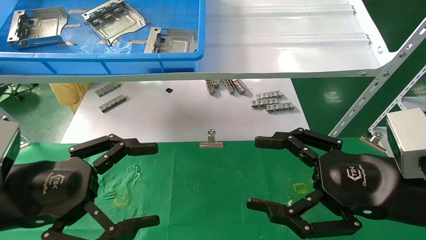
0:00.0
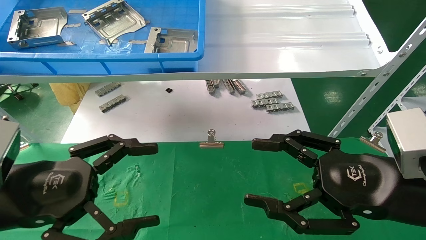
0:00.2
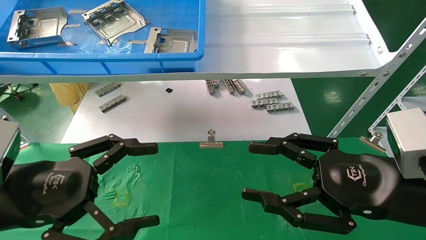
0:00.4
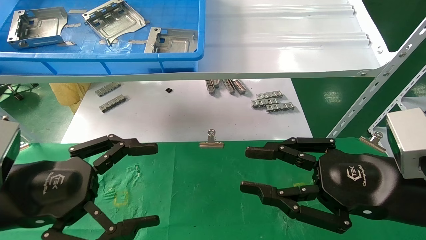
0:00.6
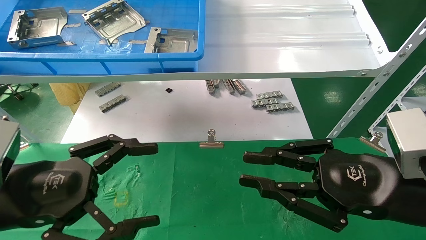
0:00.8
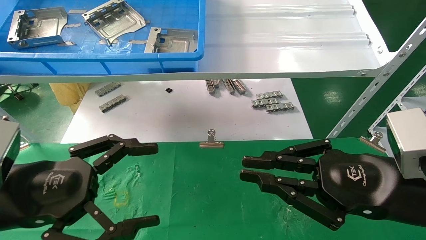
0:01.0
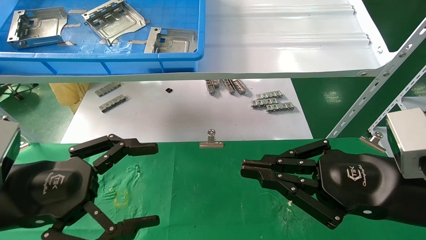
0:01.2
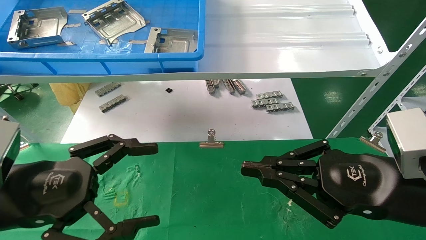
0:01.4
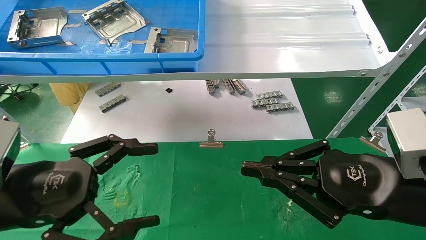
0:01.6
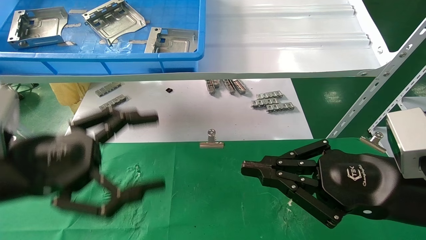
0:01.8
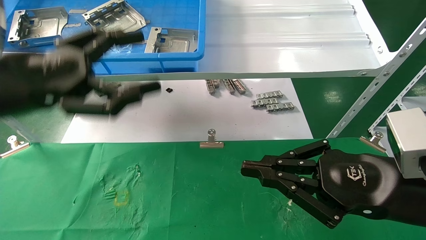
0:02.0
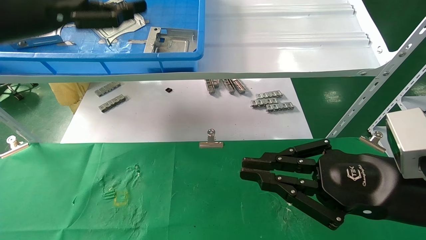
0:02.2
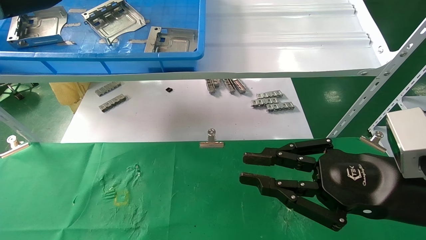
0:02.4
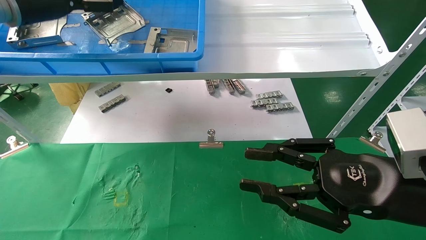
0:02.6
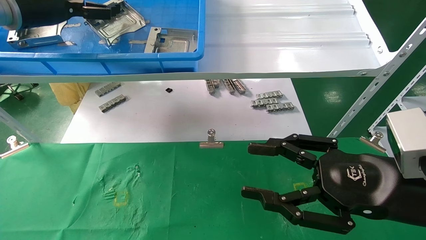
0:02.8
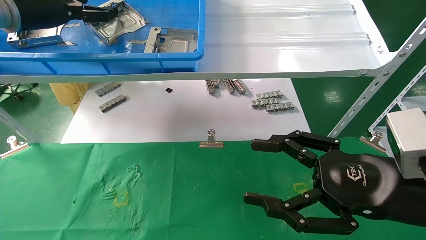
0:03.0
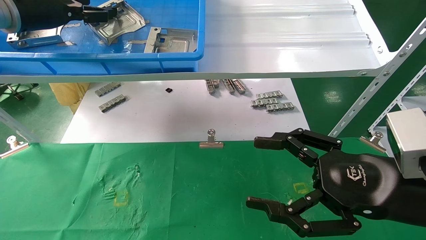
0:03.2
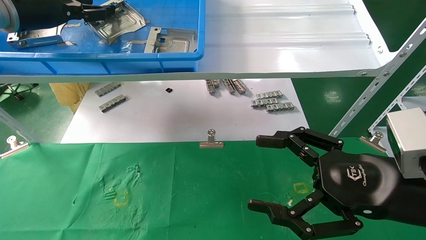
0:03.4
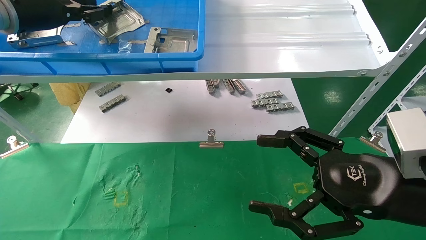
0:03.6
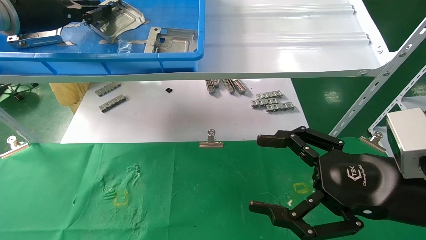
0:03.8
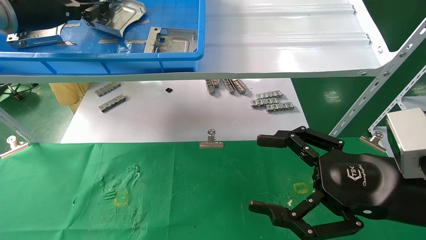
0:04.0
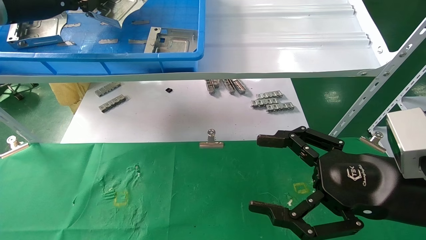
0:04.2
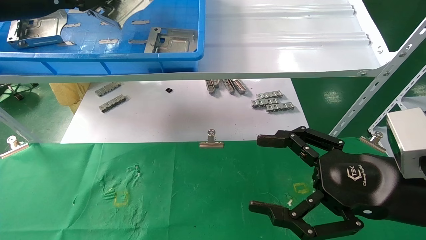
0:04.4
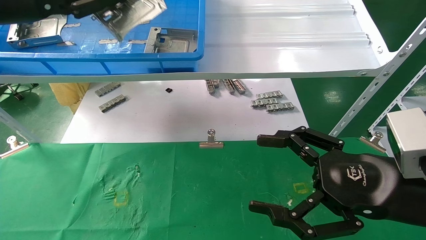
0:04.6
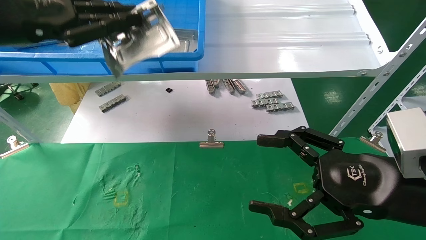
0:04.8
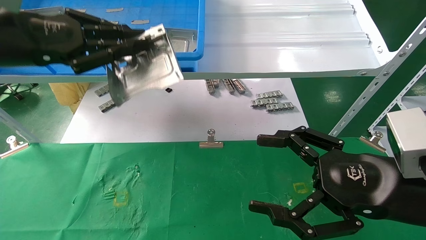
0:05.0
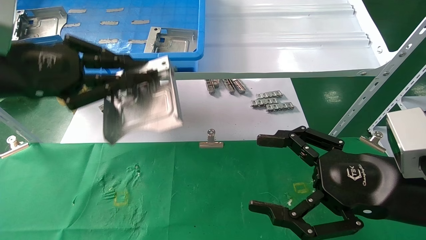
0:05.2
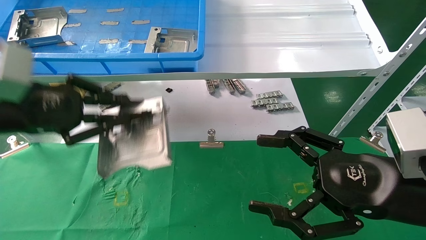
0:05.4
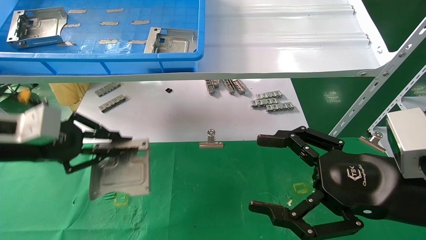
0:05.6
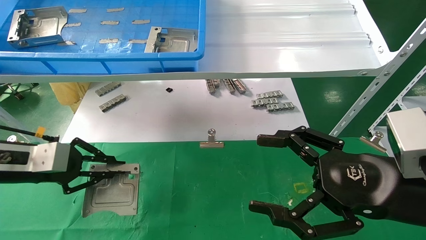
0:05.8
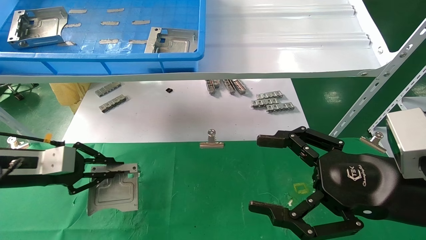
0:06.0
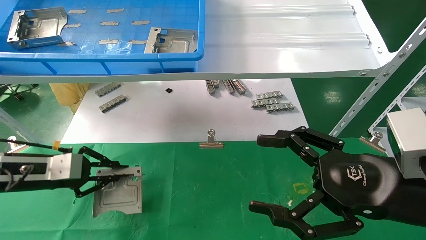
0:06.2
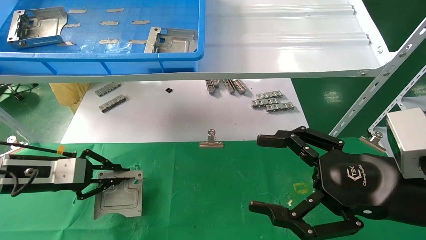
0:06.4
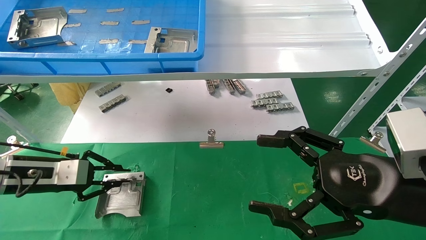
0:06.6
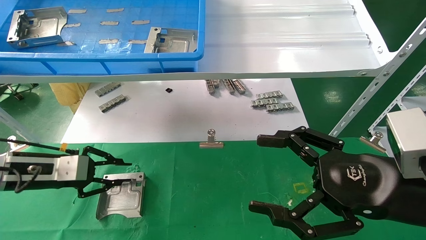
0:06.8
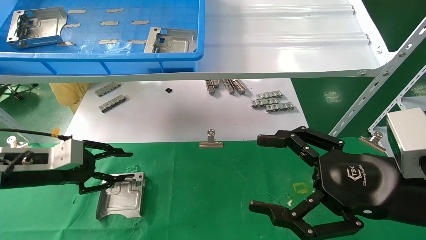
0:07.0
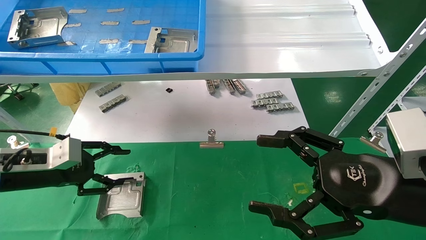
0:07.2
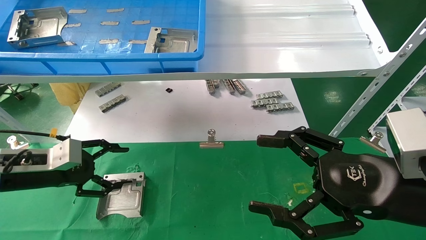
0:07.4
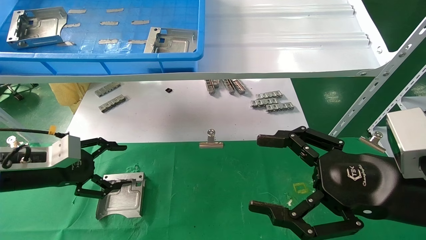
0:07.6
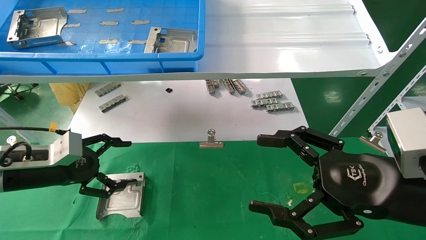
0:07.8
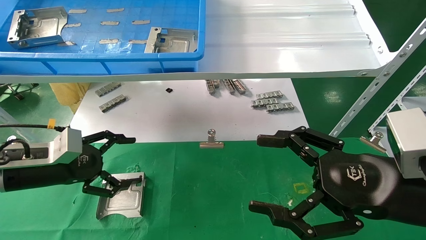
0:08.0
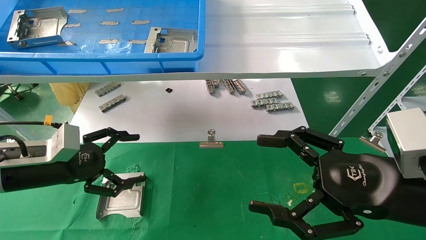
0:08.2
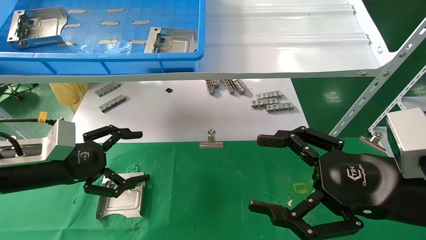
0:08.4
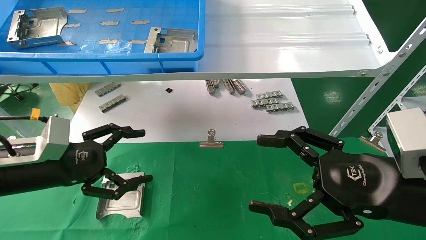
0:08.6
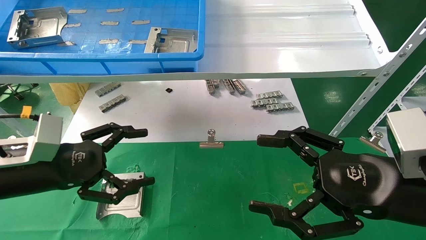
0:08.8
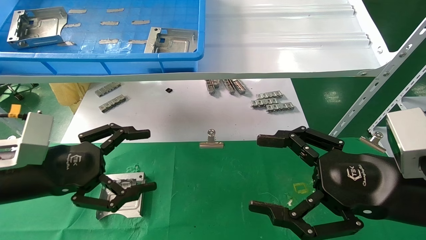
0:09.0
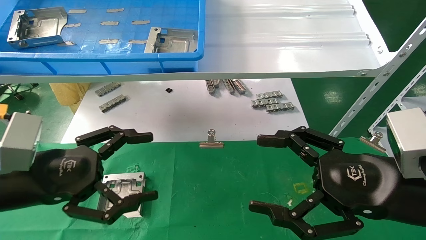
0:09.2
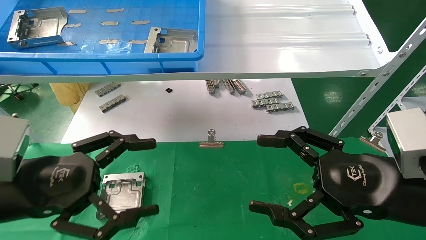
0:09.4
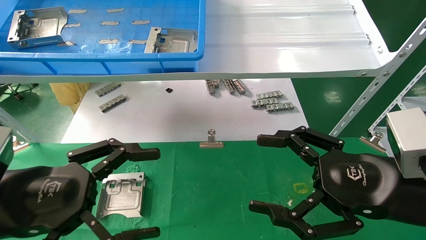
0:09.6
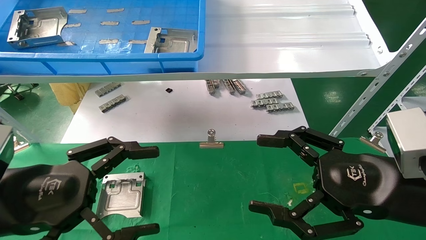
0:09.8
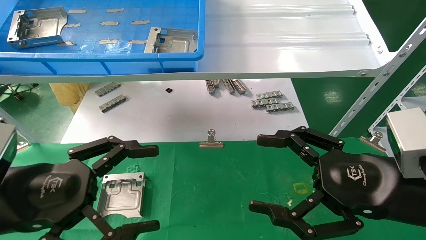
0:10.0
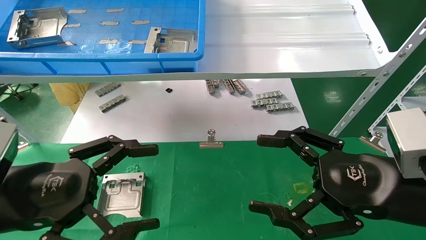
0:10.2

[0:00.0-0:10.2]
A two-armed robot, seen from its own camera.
Task of the whole recording: use the mechanical arm to pick up the parts and place them on the table.
Step, 0:02.0 to 0:03.8: Pick up the hard drive bracket from the feeding area.
Step, 0:04.0 to 0:06.6: Place the hard drive bracket into the box.
0:00.0 to 0:01.4: The right gripper closes up.
0:01.4 to 0:03.0: The left gripper moves upward and forward, about 30 cm. The right gripper opens its fingers.
0:03.0 to 0:04.4: The right gripper opens. Meanwhile the left gripper changes place by about 5 cm, and closes its fingers.
0:04.4 to 0:05.8: The left gripper shifts roughly 25 cm downward.
0:05.8 to 0:07.2: The left gripper changes place by some 5 cm, and opens.
0:07.2 to 0:08.8: The left gripper goes some 10 cm backward and to the right, and opens up.
0:08.8 to 0:10.2: The left gripper goes about 10 cm backward.

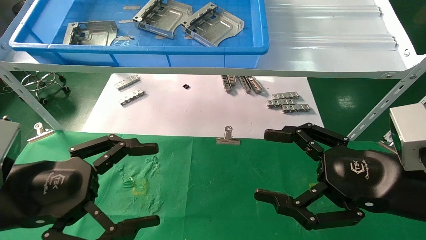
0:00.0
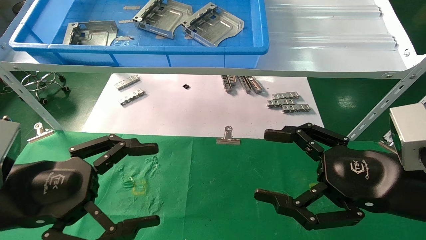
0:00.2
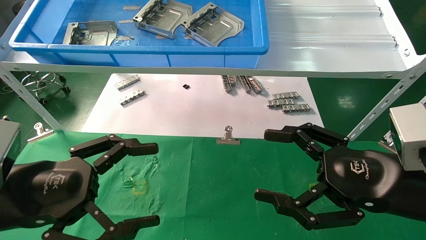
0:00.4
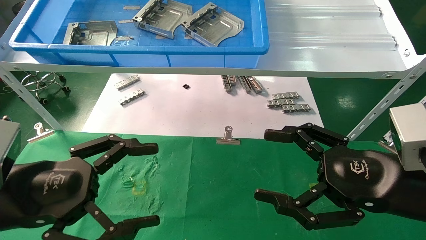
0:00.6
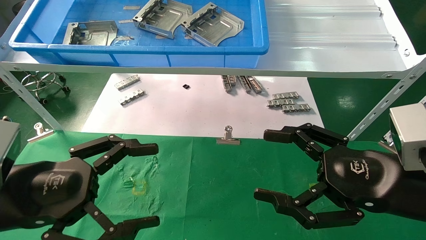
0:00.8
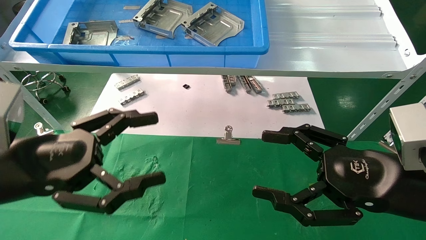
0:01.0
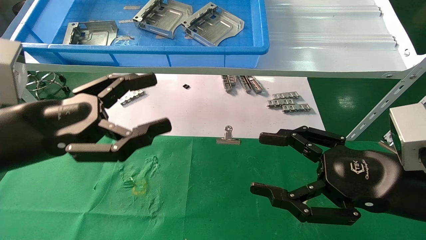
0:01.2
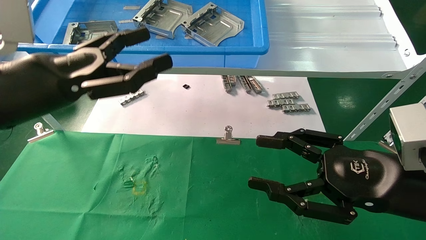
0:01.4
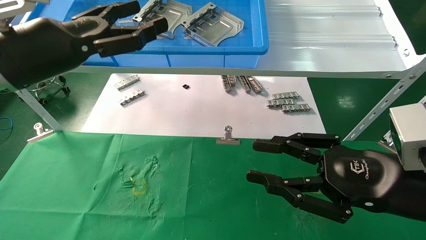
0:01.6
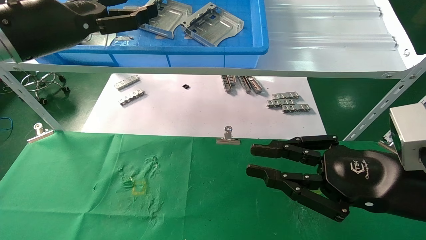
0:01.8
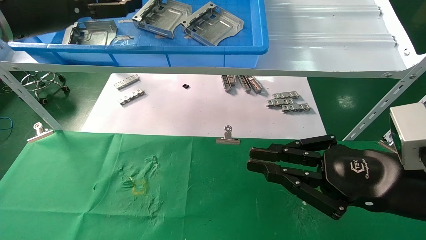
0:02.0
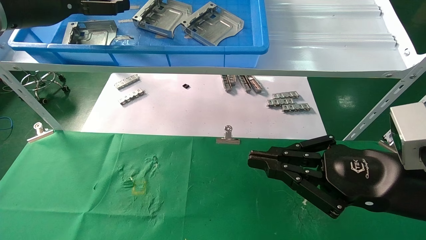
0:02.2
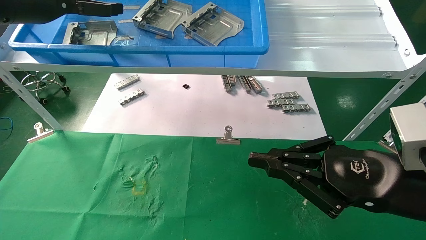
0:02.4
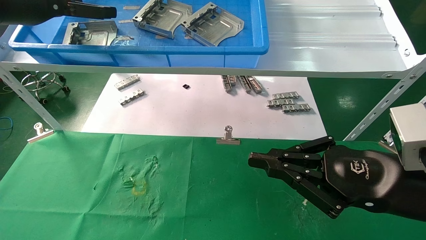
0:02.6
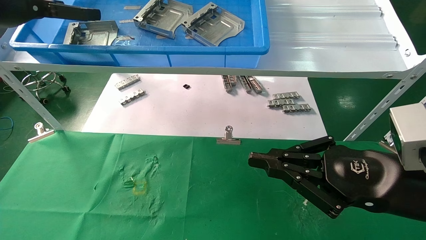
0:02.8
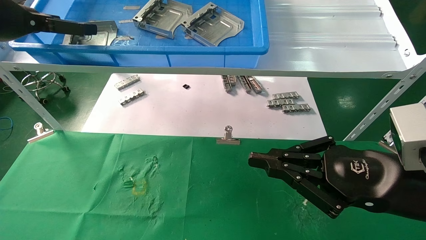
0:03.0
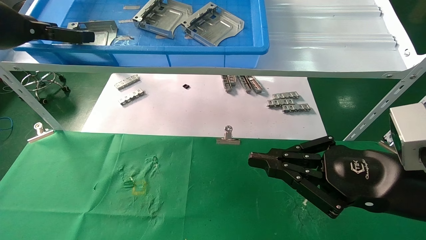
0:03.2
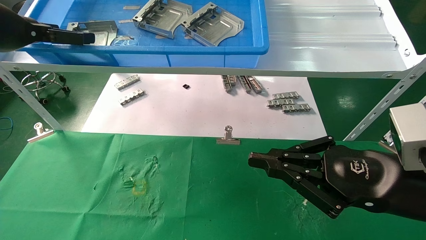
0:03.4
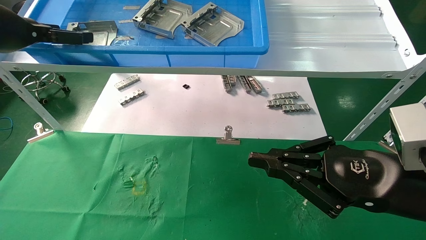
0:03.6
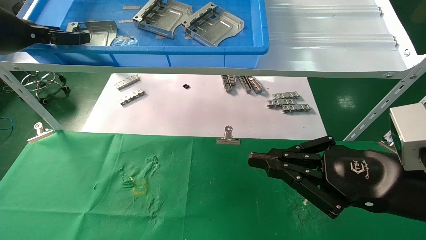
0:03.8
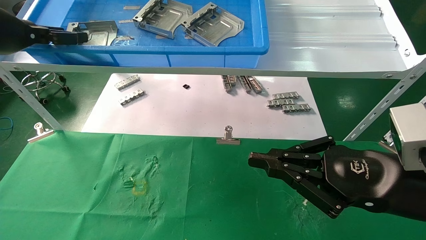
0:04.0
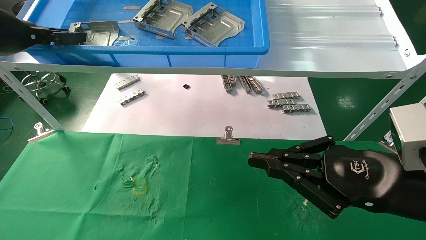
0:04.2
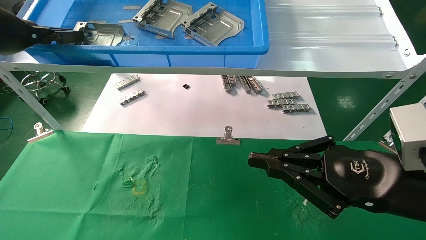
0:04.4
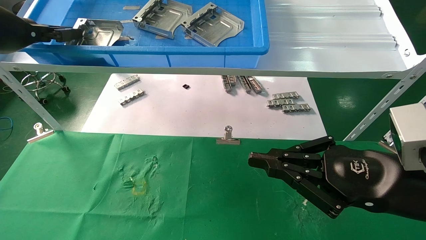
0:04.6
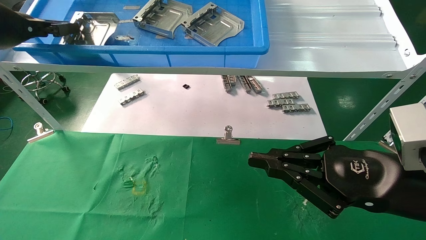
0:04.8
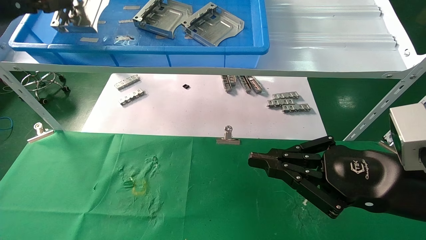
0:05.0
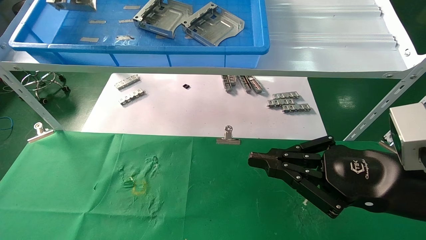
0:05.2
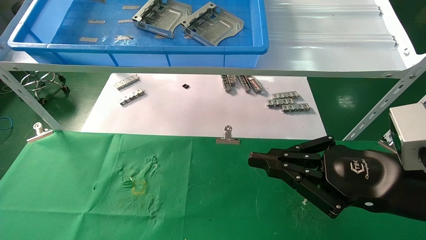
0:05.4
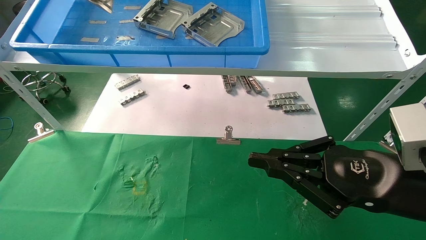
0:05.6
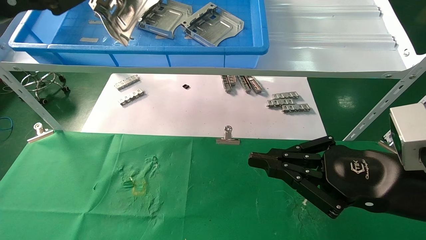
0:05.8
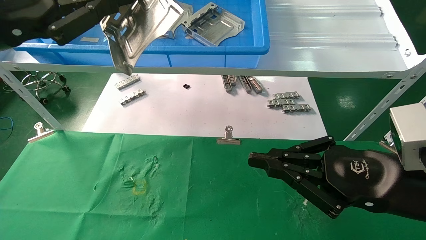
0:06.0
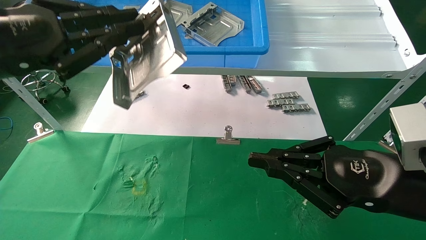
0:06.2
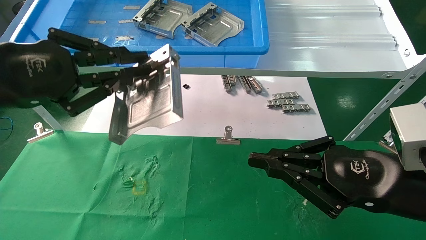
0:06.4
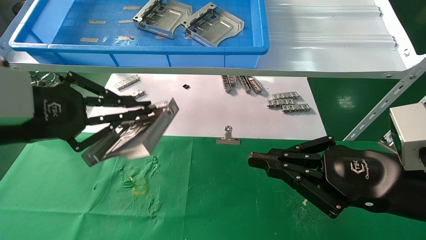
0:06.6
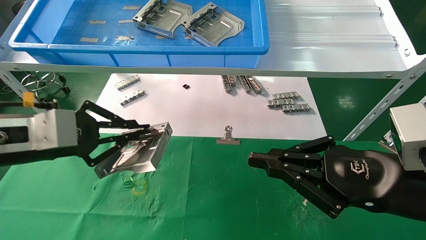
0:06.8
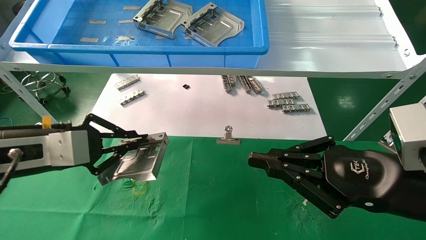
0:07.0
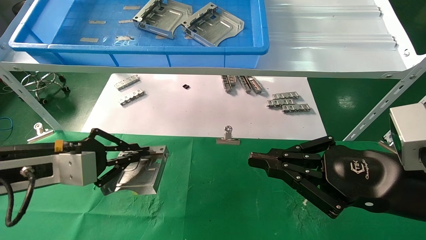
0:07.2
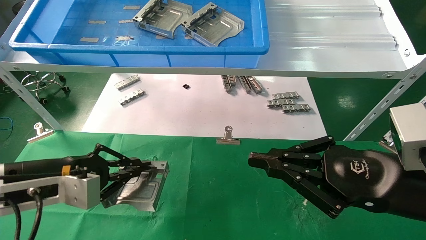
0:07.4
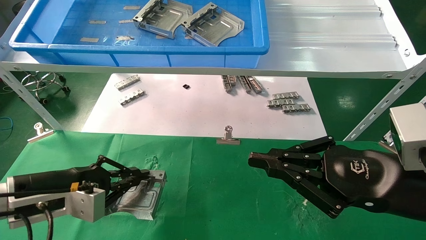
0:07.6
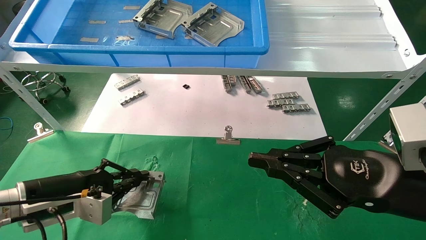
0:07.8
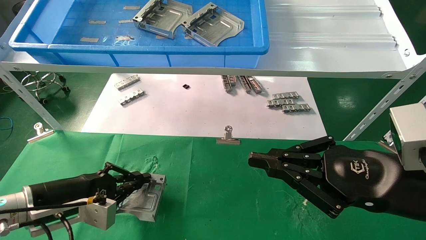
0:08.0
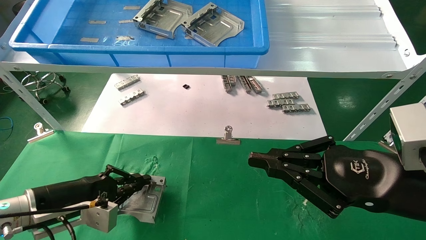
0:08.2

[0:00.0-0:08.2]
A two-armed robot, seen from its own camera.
Task of the whole recording: use the mechanical arm to pick up the parts and place them on the table.
Step, 0:01.4 to 0:04.6: Pick up the hard drive bracket from the feeding area.
0:00.0 to 0:01.6: The left gripper is displaced upward and forward by about 15 cm. Meanwhile the right gripper closes its fingers.
0:01.6 to 0:03.2: The right gripper closes; the left gripper goes some 10 cm to the left and upward.
0:03.2 to 0:05.0: The left gripper closes up.
0:05.0 to 0:06.6: The left gripper heads downward, backward and to the right, covering roughly 15 cm.
0:06.6 to 0:08.2: The left gripper moves downward, roughly 20 cm.
